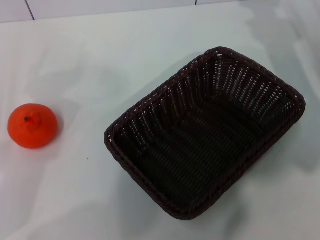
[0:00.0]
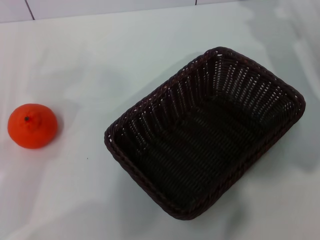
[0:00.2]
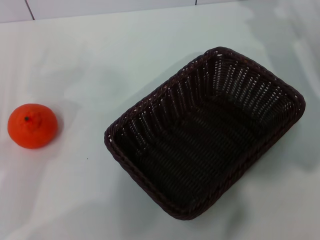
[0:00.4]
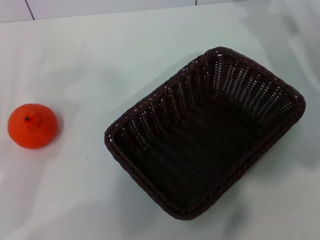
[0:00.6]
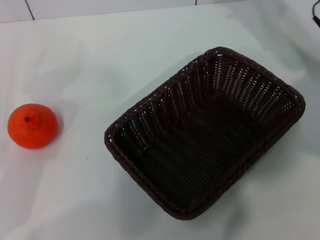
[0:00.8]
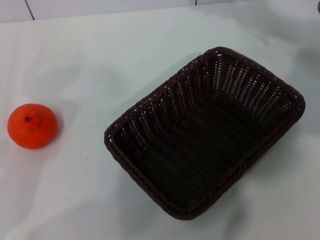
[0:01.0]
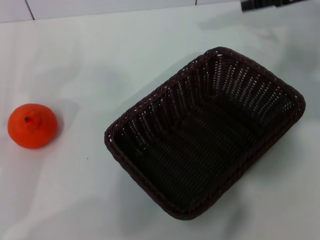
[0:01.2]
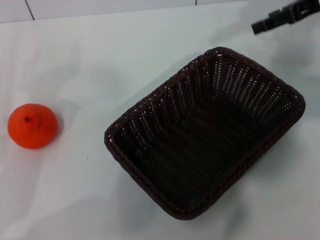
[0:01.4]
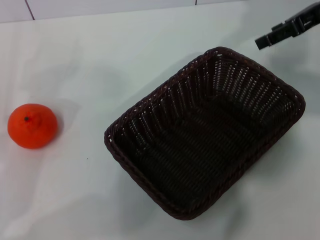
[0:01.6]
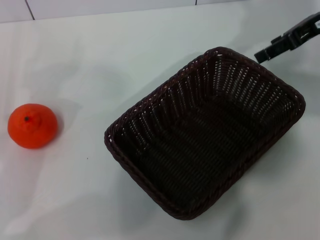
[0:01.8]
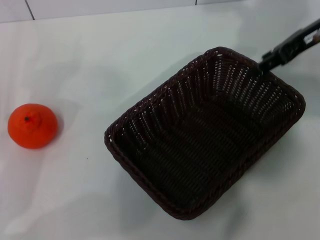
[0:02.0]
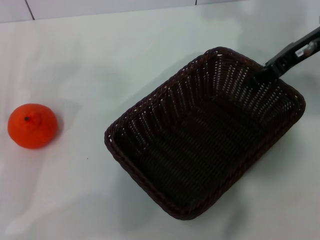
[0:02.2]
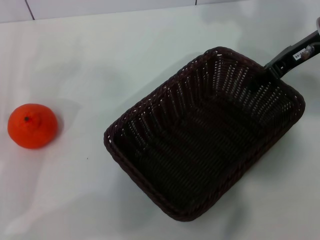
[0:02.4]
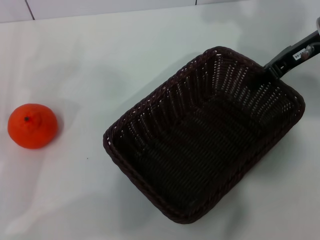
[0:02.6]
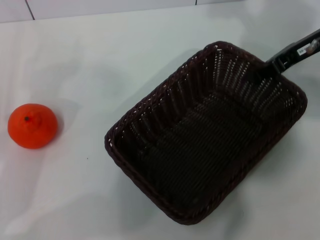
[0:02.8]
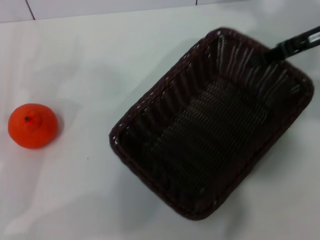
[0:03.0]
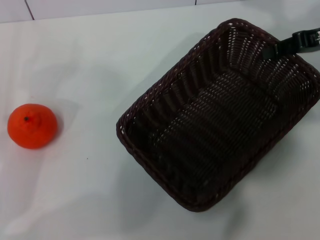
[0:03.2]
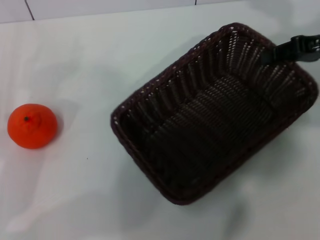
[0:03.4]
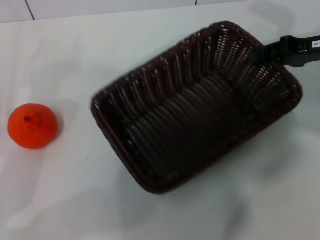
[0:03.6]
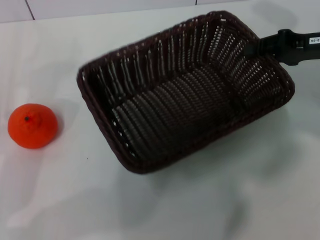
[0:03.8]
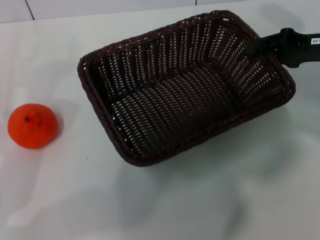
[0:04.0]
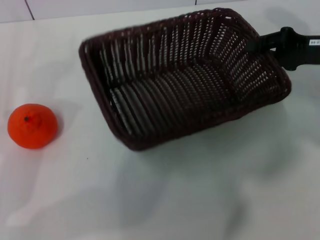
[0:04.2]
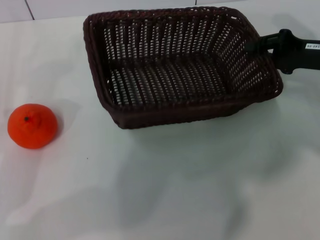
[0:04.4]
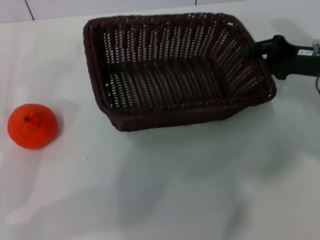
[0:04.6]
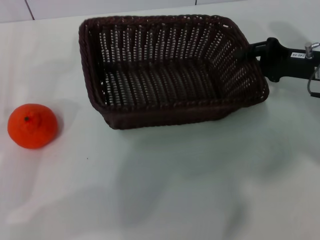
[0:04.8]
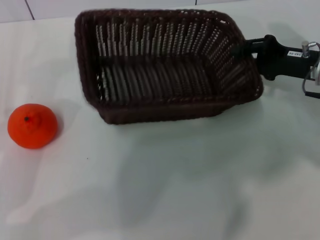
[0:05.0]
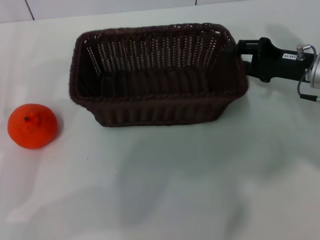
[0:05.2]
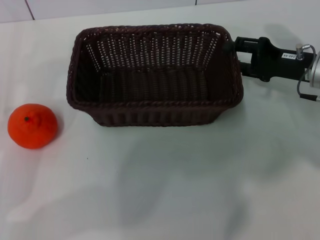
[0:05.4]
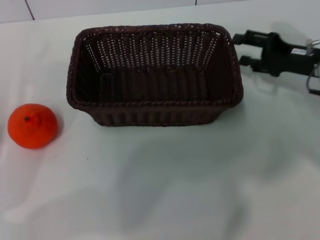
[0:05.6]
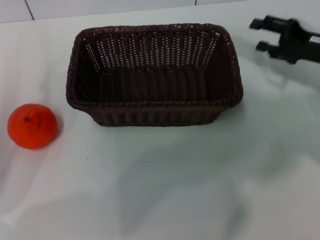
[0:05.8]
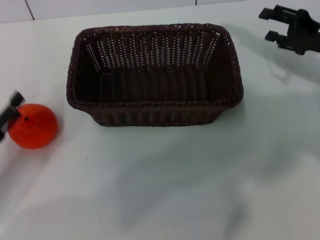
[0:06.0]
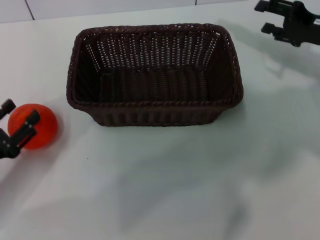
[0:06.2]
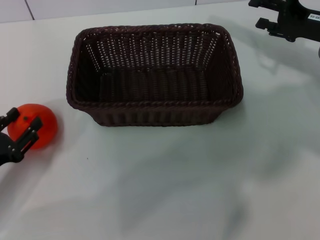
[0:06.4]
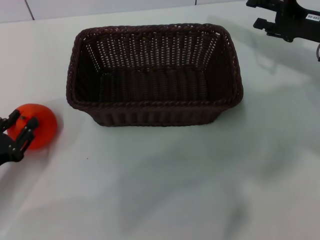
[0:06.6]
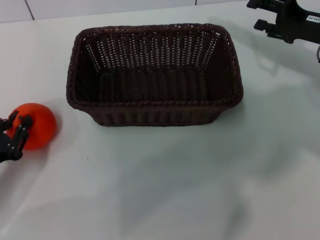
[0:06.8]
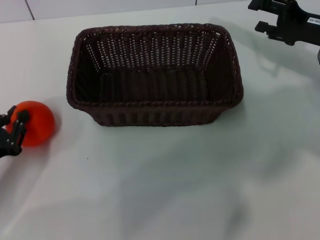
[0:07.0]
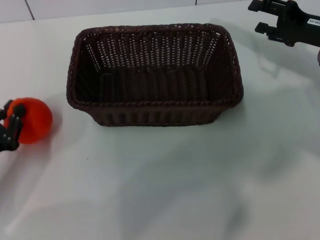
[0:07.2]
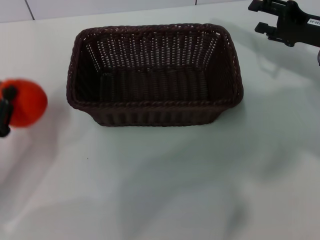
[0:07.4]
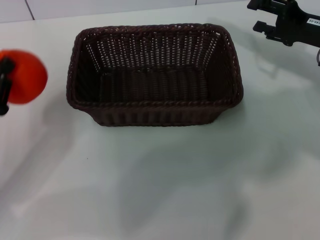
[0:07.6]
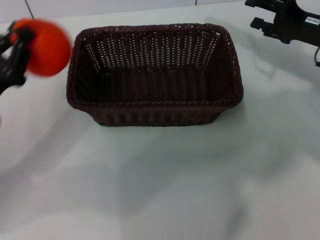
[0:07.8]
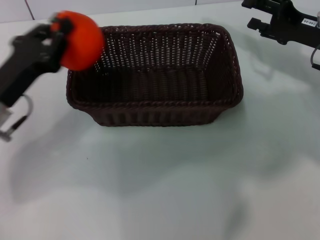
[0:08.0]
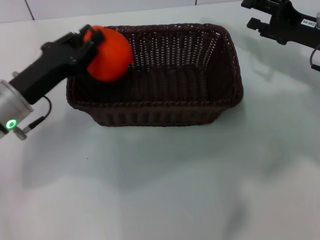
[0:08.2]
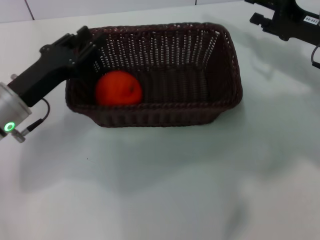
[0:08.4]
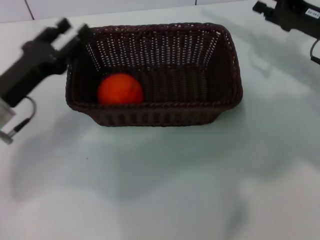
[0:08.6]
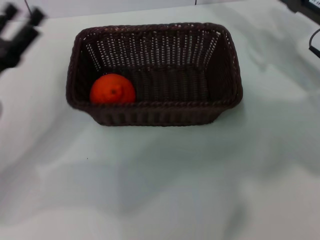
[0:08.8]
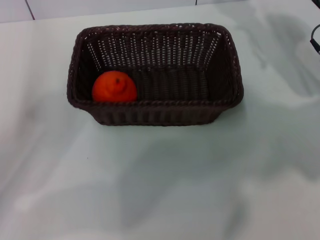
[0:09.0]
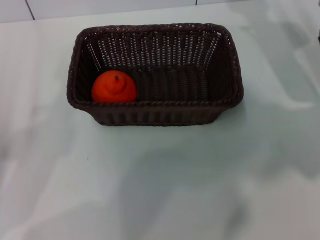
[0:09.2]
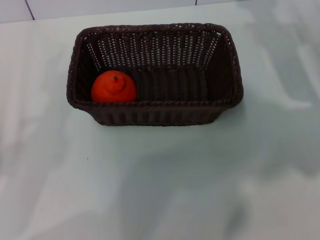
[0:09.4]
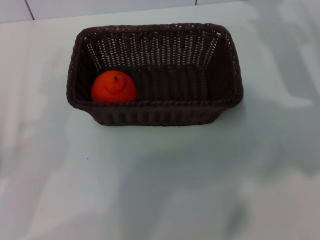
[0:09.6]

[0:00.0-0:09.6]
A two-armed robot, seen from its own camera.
Task of the whole recording: the right gripper pick up the black basket and place it horizontally in the middle of the table, the left gripper pick up the orange and place it into the black basket.
Step, 0:00.0 to 0:03.4: Pick up the dark basket with the right gripper.
Step, 0:03.8 to 0:05.6: Place the dark basket in the center of view with the right gripper.
Step, 0:05.8 to 0:07.4: Pick up the orange with the left gripper.
Step, 0:07.6 to 0:08.6: Place the orange into the dark basket with the left gripper.
0:00.0 to 0:01.6: The right gripper travels upward by about 10 cm.
0:01.6 to 0:03.2: The right gripper moves roughly 5 cm, and closes its fingers.
0:03.2 to 0:04.8: The right gripper travels downward by some 10 cm.
0:04.8 to 0:06.4: The right gripper opens its fingers.
0:06.4 to 0:08.0: The left gripper shifts some 15 cm forward, to the right and upward, and closes.
0:08.0 to 0:09.6: The left gripper shifts about 15 cm backward and to the left, and opens up.
